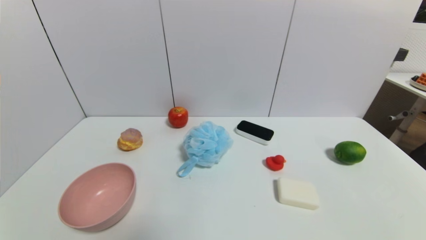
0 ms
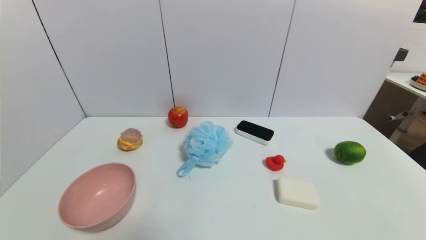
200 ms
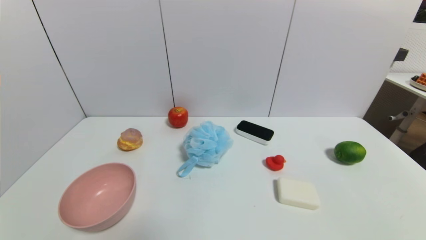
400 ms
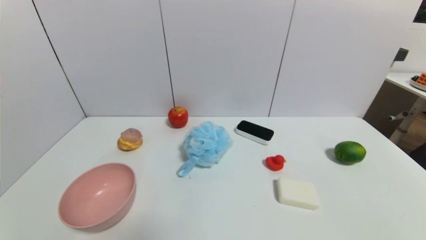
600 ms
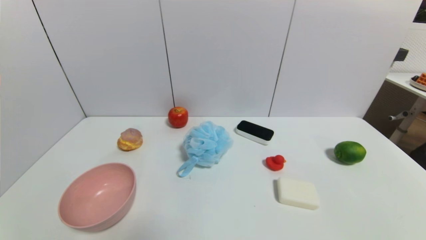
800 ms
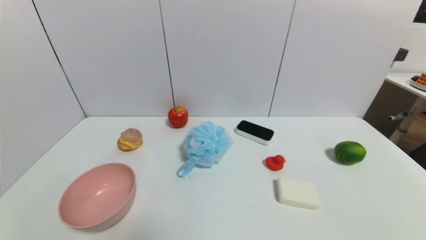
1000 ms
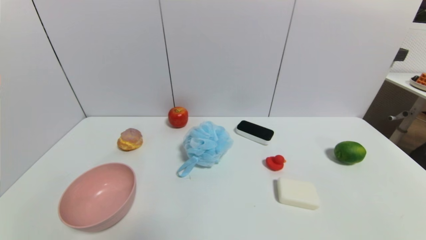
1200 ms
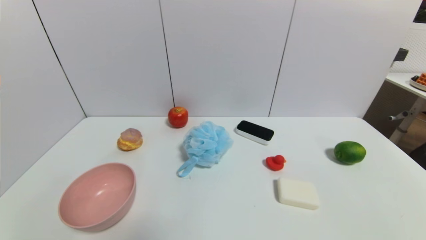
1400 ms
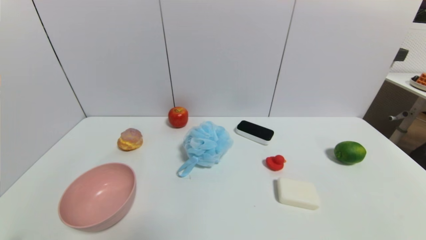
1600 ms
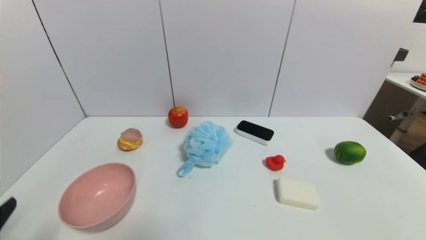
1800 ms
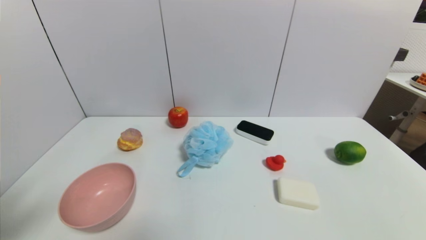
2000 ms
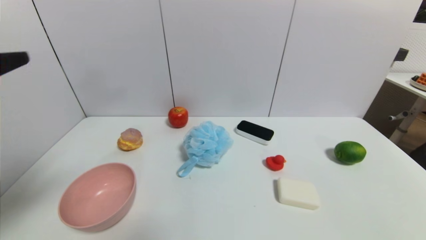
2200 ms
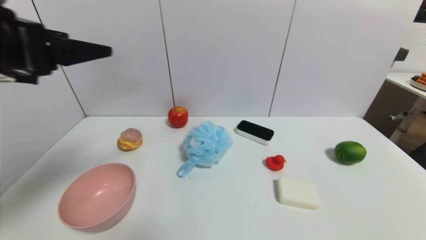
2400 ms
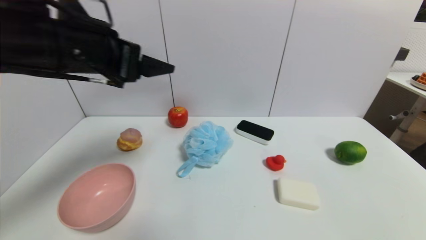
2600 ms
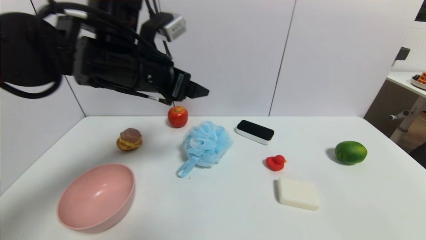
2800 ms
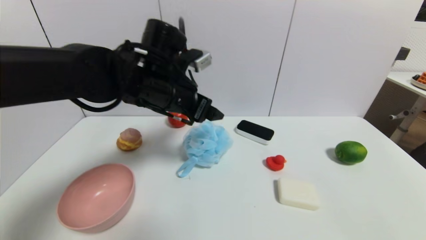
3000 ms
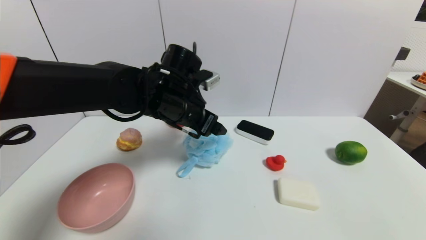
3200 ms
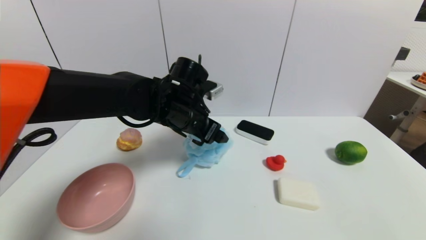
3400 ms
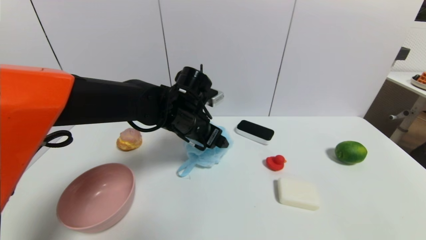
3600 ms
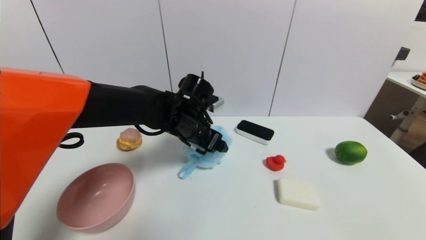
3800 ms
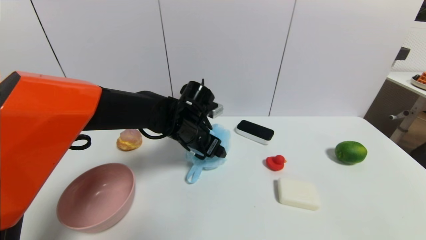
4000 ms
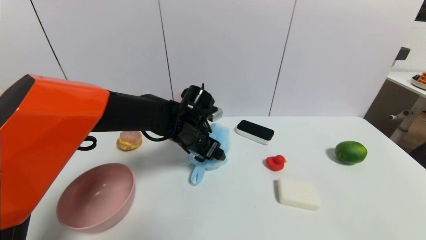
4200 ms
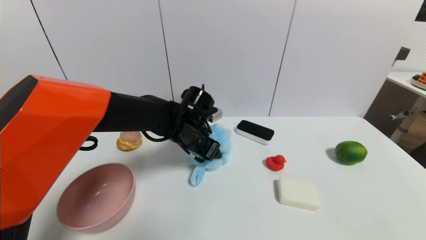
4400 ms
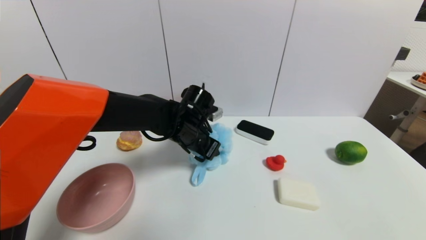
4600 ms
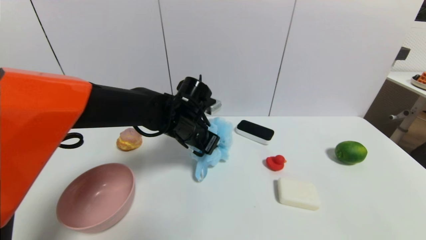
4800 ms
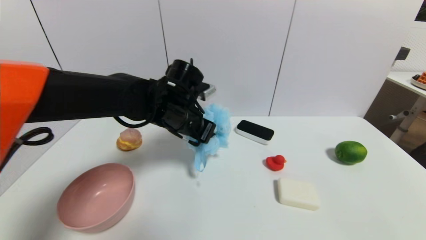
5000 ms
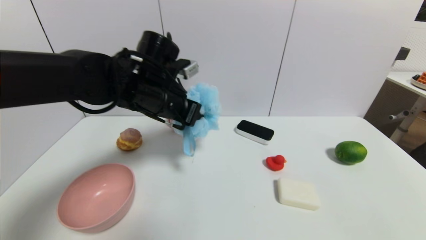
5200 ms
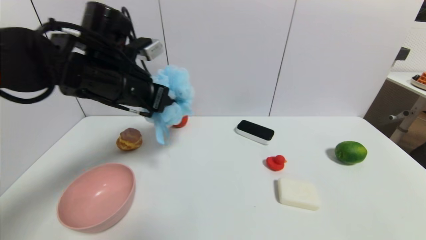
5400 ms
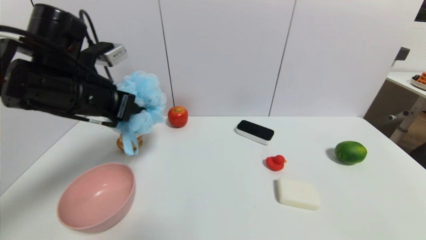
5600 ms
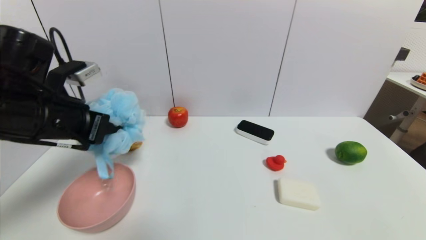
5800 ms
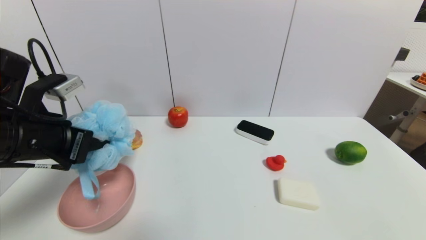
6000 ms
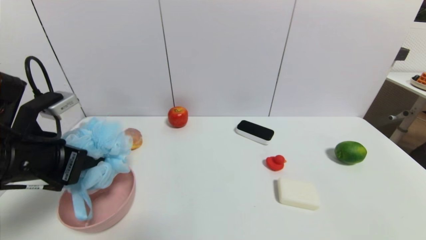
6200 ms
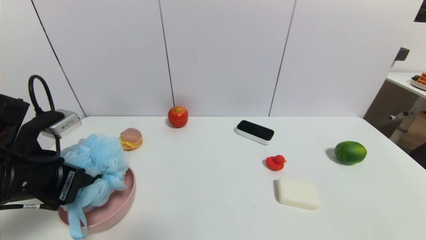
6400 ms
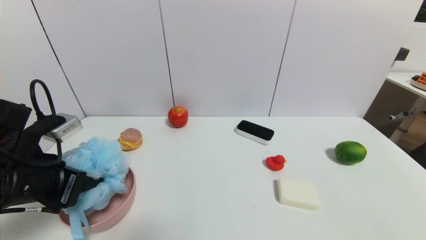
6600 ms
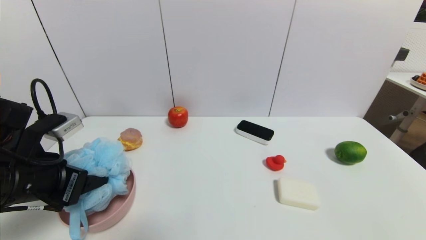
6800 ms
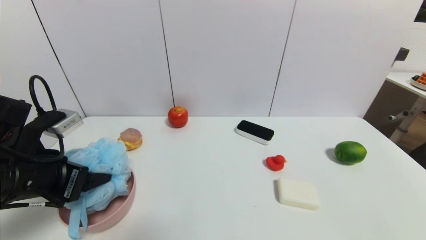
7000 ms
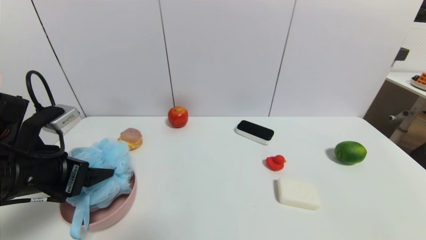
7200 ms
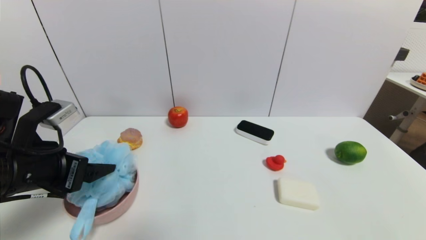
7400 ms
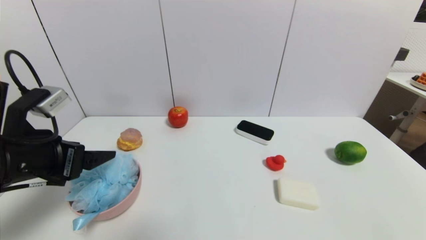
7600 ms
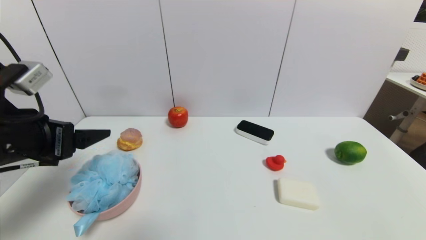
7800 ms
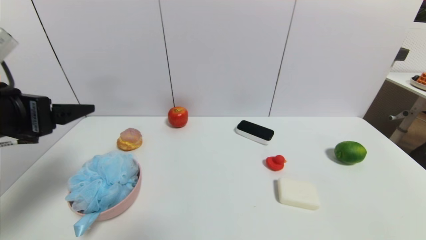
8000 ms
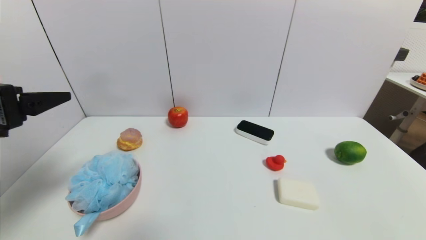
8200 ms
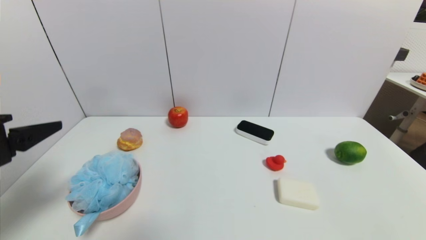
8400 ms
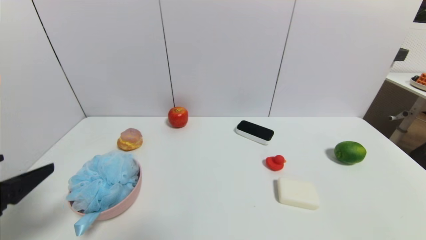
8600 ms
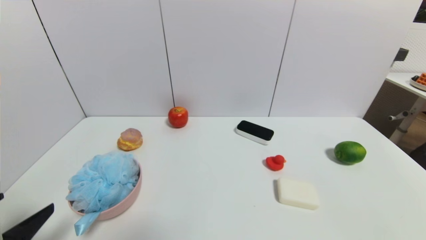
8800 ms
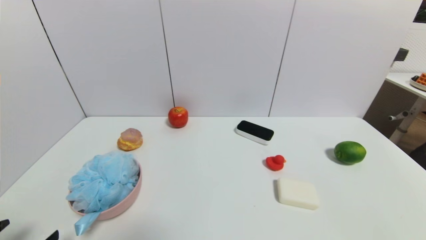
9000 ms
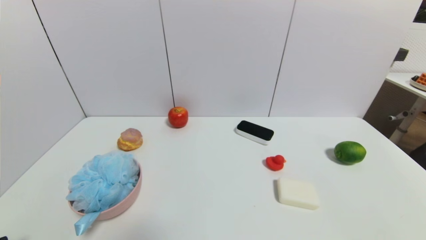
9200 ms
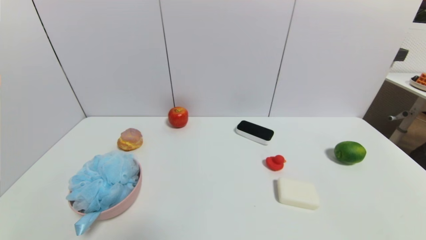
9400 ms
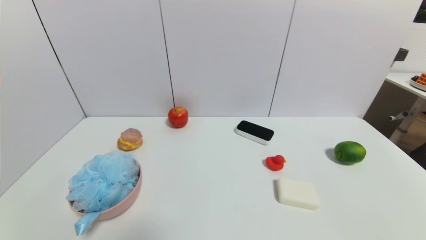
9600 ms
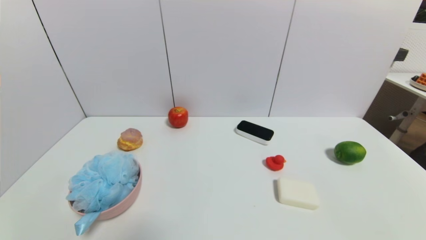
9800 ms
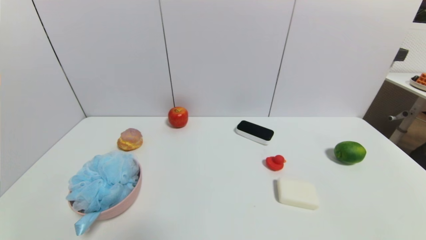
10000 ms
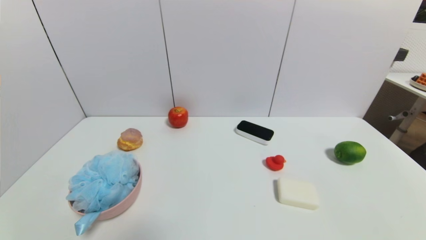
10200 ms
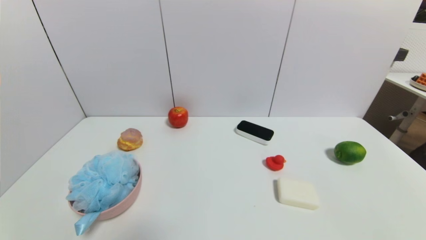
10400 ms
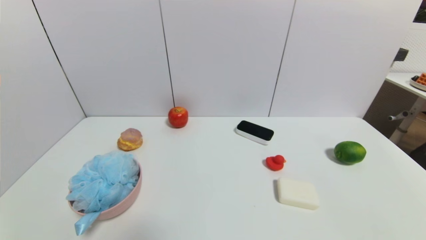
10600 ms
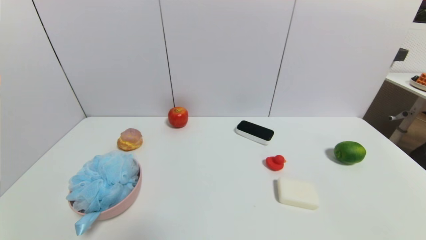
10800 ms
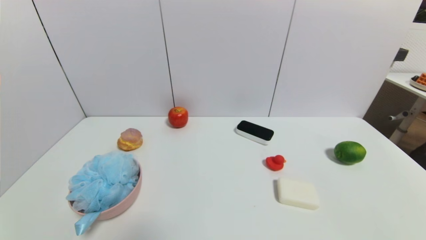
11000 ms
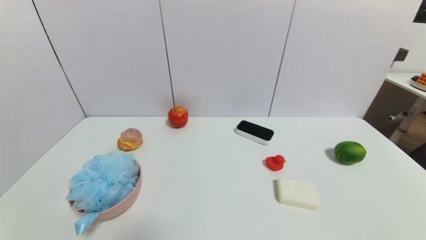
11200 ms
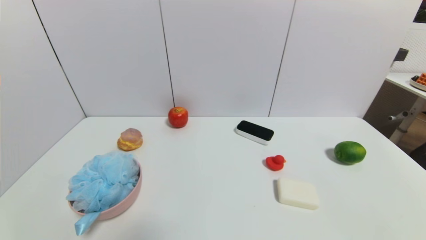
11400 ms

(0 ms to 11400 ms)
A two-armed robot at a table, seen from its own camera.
Task of the whole recording: use a gripper to pick the target object and place on the pink bowl.
Step, 0 ms - 4400 ms: Grasp the shower sphere with the left gripper.
Step, 4600 ms - 7600 ms: Place the shower sphere on the pink bowl with the left gripper.
0 ms - 1400 ms: Both grippers stay put.
1400 ms - 2800 ms: The left gripper travels forward, upward and to the right by about 40 cm.
2800 ms - 4200 ms: The left gripper goes roughly 20 cm downward, to the right and forward.
4200 ms - 5600 ms: The left gripper is displaced to the left, upward and backward by some 25 cm, and closes.
5600 ms - 7200 ms: The left gripper goes about 10 cm backward and downward, and opens its fingers.
7200 ms - 8600 ms: The left gripper is displaced backward by roughly 10 cm.
8600 ms - 10000 ms: The left gripper is displaced downward and backward by roughly 20 cm.
10000 ms - 11400 ms: The two grippers keep their place.

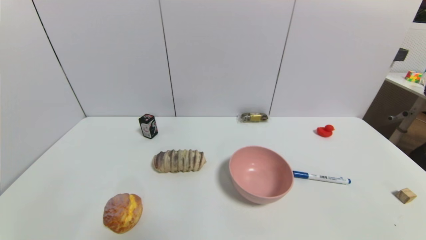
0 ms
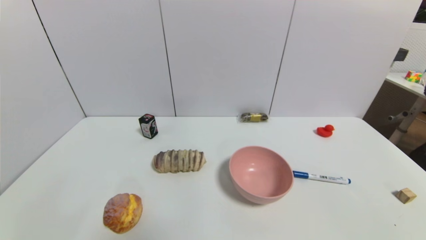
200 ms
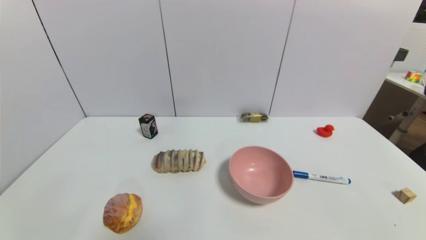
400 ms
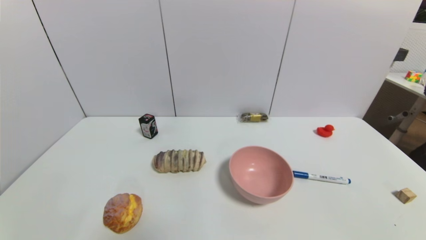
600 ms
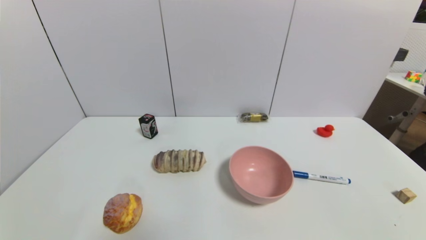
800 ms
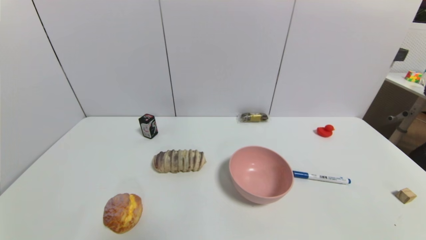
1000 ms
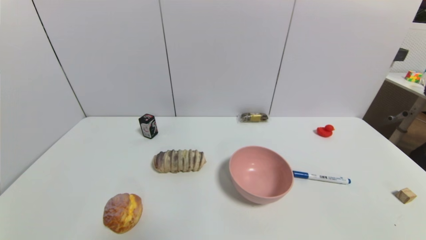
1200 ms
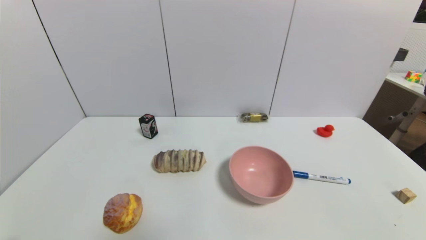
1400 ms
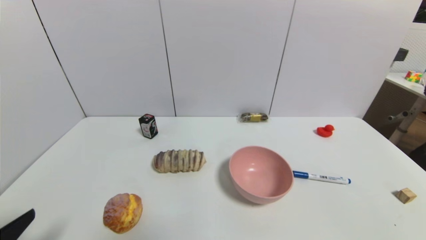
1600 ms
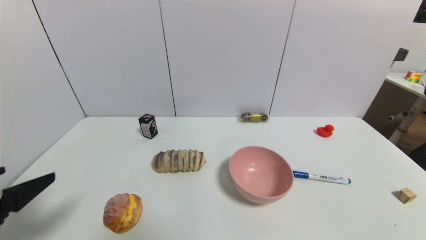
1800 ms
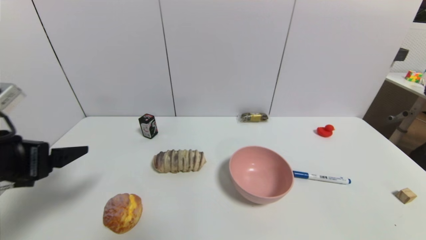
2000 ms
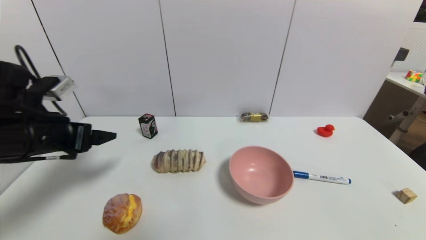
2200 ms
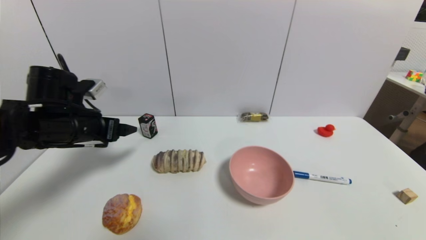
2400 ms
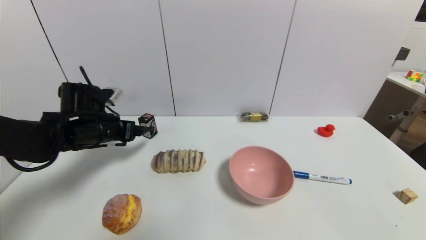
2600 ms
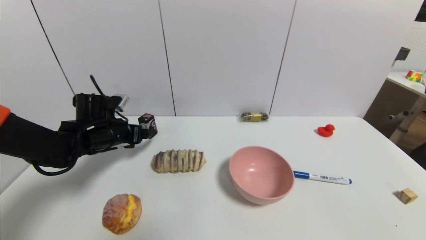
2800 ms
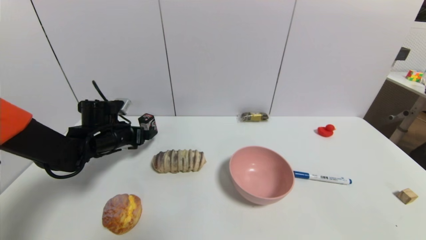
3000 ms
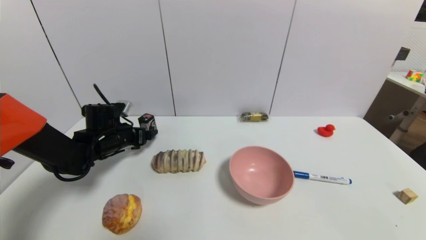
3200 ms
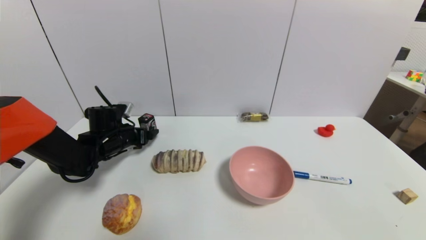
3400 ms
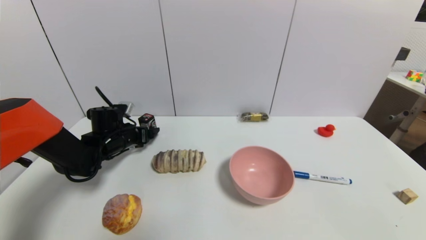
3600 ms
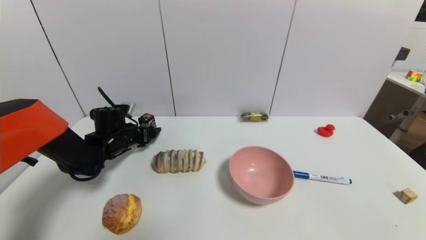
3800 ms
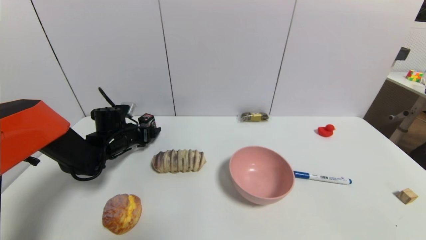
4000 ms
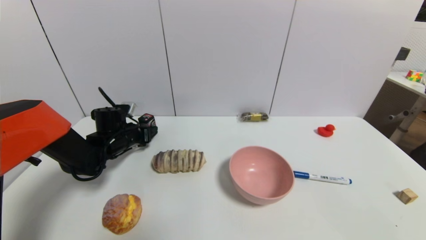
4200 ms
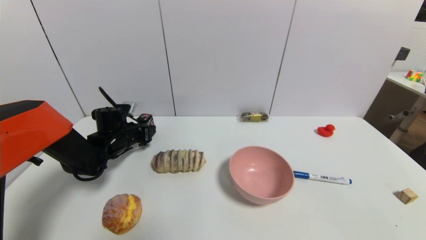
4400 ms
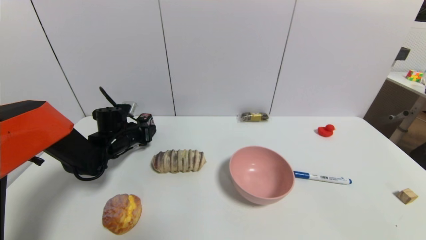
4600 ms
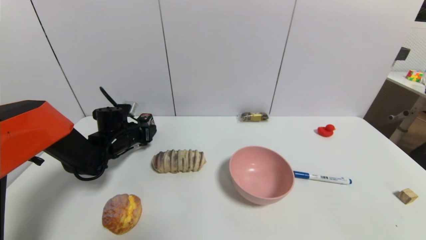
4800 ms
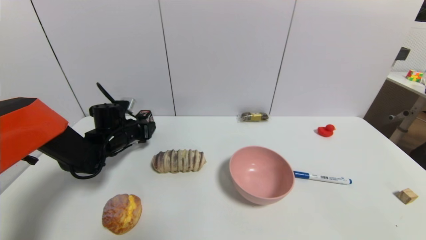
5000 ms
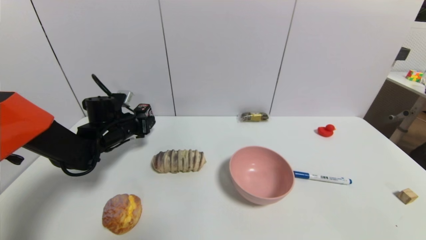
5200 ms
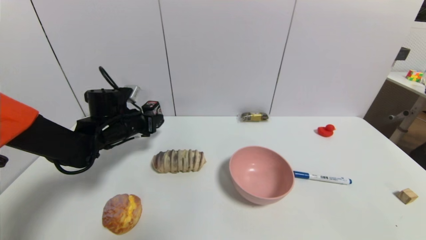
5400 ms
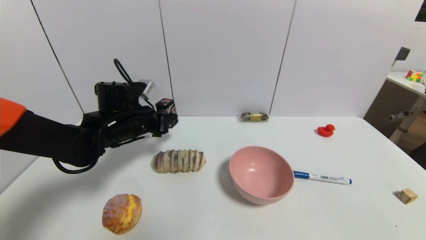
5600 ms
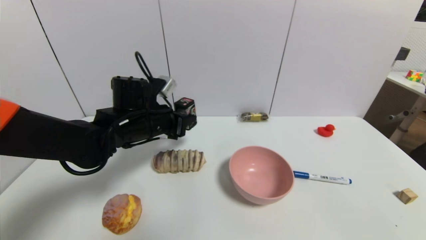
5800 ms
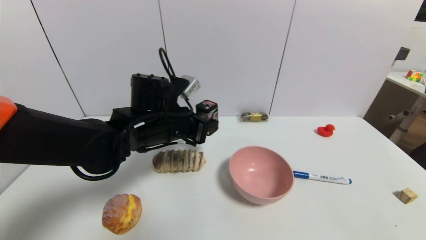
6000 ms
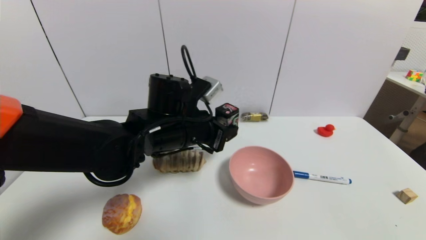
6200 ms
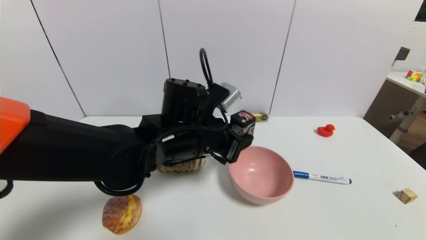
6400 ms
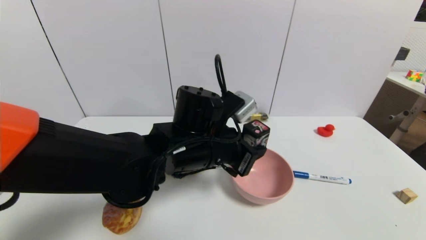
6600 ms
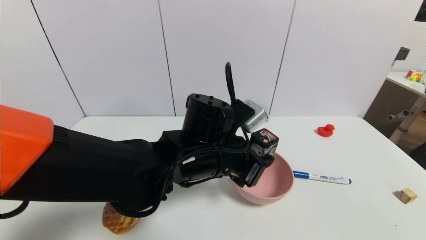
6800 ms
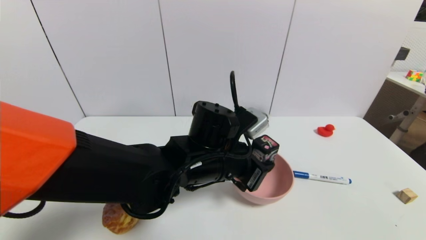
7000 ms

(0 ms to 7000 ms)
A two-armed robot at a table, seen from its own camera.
Task of the whole recording: use a gripper to pick the target object and place on the pink bowl.
Step, 0 ms - 4600 ms: Grasp the square chewing gum with the left gripper.
1400 ms - 2800 ms: The left gripper travels forward by some 35 cm.
2800 ms - 4200 ms: The left gripper is displaced downward by approximately 5 cm, and closes up.
4200 ms - 5600 ms: The left gripper moves upward, to the right and backward, roughly 15 cm, and closes.
5600 ms - 7000 ms: The left gripper goes some 20 cm to the right and backward.
